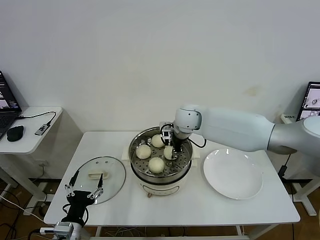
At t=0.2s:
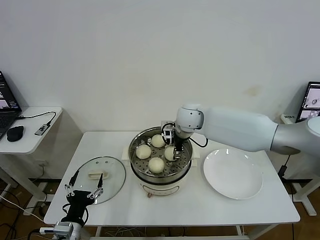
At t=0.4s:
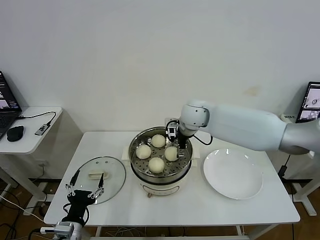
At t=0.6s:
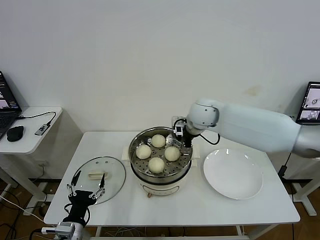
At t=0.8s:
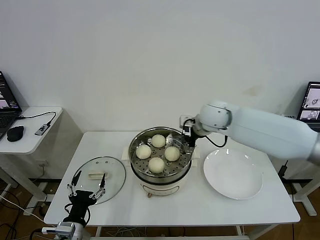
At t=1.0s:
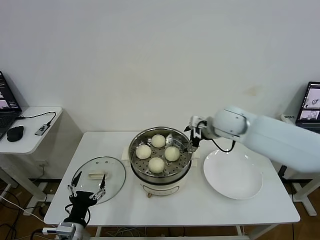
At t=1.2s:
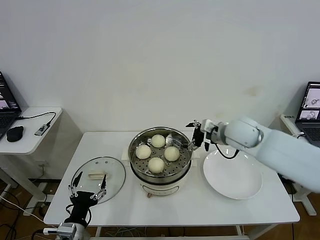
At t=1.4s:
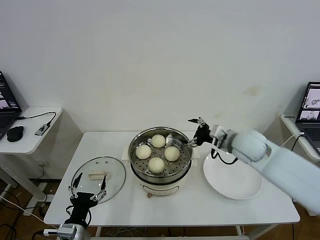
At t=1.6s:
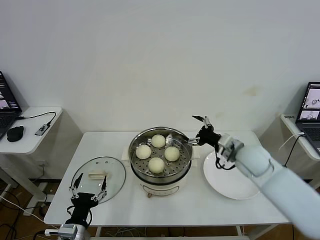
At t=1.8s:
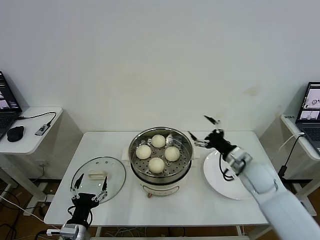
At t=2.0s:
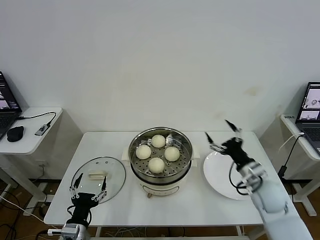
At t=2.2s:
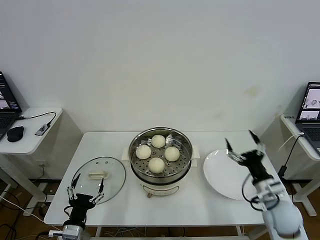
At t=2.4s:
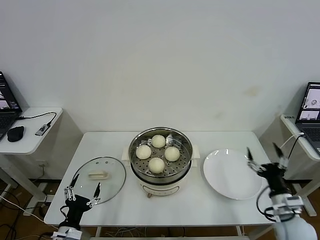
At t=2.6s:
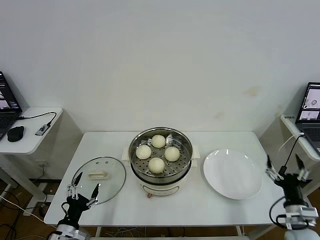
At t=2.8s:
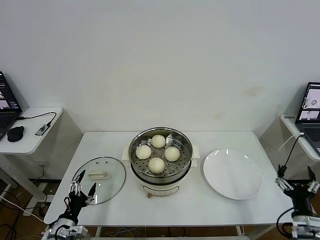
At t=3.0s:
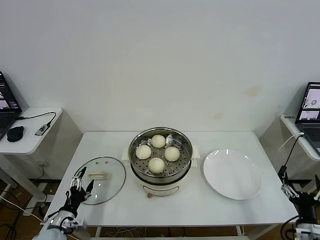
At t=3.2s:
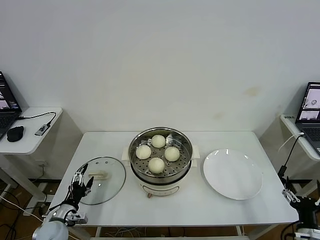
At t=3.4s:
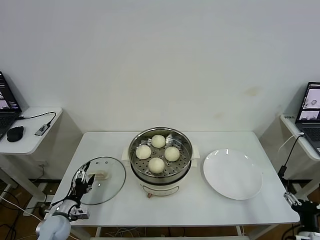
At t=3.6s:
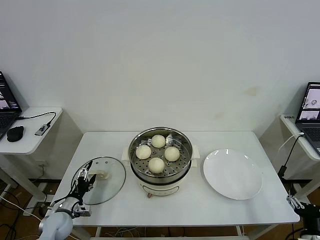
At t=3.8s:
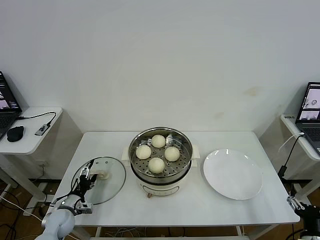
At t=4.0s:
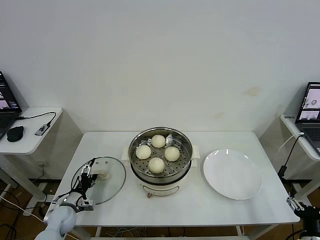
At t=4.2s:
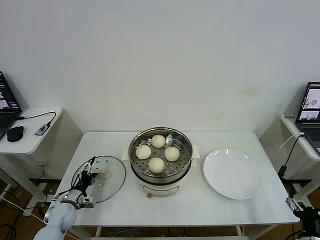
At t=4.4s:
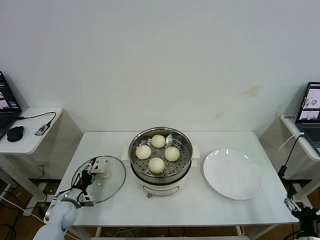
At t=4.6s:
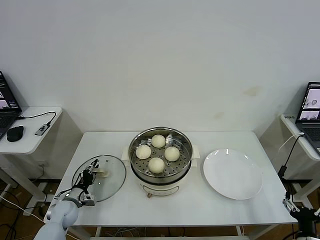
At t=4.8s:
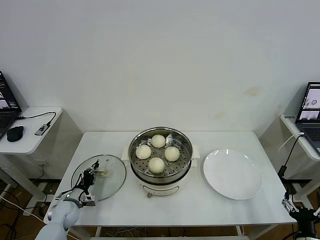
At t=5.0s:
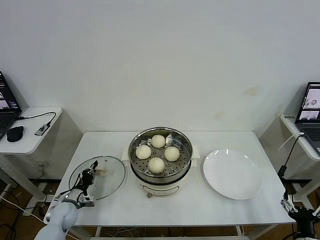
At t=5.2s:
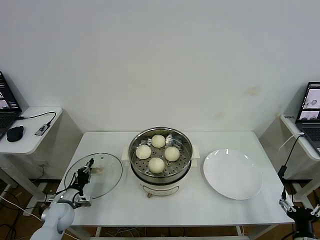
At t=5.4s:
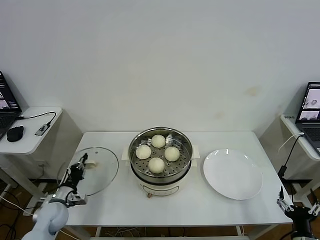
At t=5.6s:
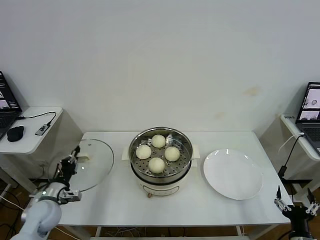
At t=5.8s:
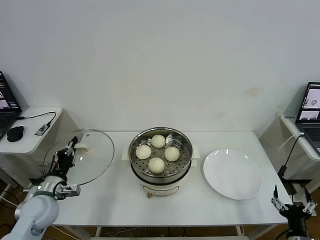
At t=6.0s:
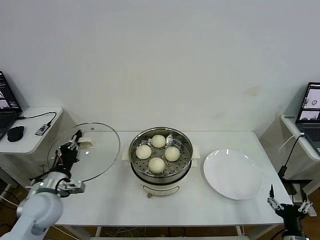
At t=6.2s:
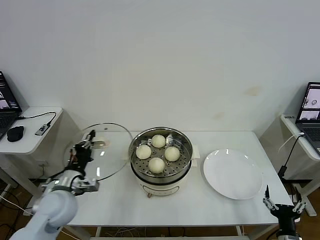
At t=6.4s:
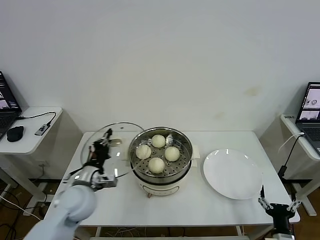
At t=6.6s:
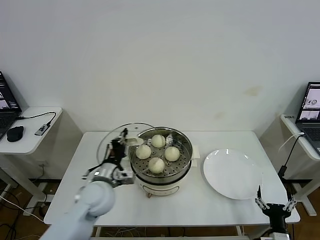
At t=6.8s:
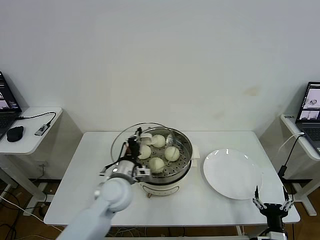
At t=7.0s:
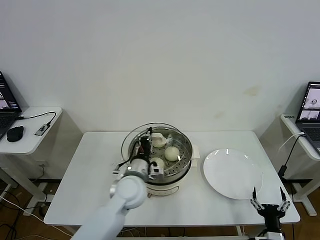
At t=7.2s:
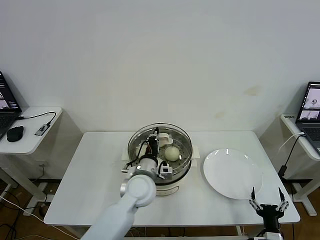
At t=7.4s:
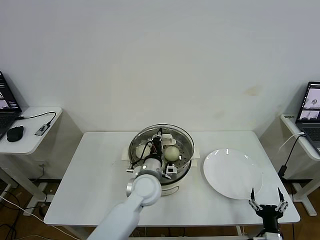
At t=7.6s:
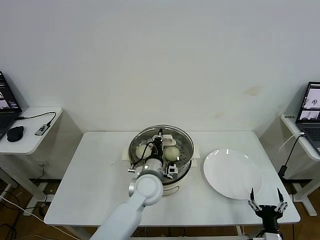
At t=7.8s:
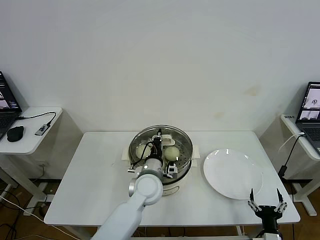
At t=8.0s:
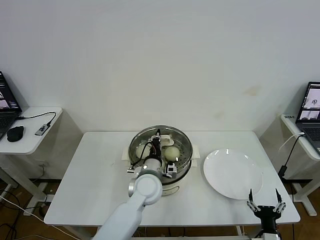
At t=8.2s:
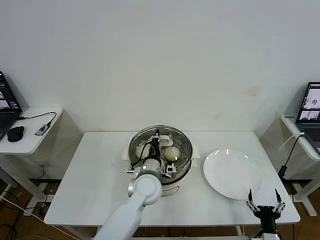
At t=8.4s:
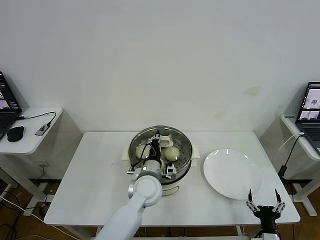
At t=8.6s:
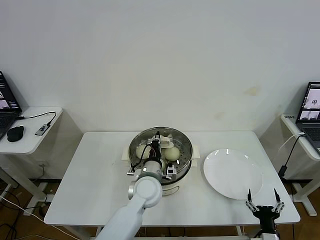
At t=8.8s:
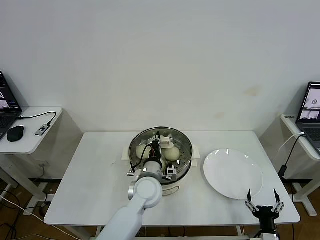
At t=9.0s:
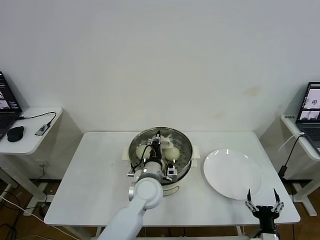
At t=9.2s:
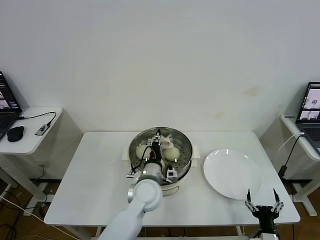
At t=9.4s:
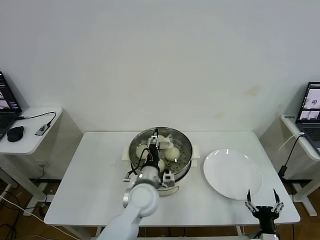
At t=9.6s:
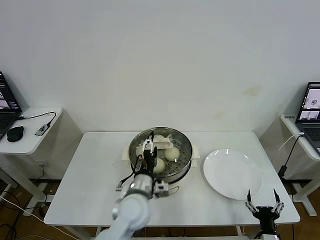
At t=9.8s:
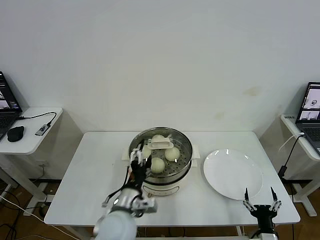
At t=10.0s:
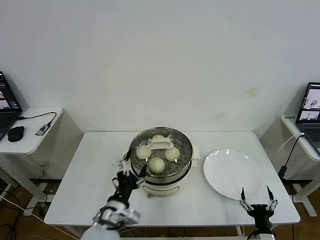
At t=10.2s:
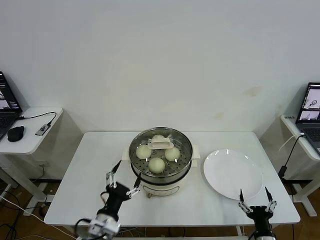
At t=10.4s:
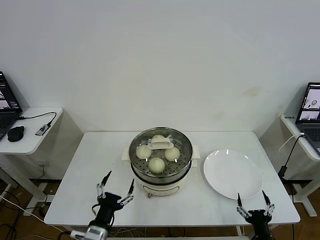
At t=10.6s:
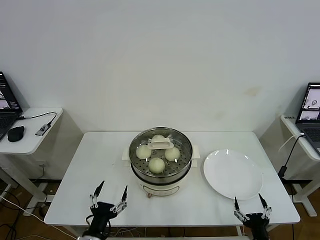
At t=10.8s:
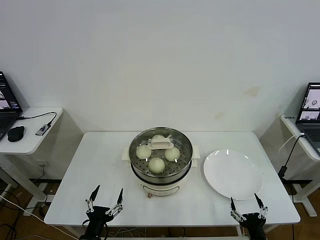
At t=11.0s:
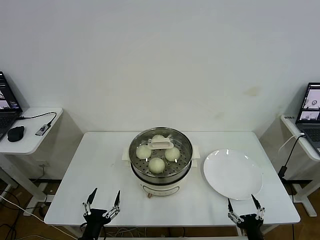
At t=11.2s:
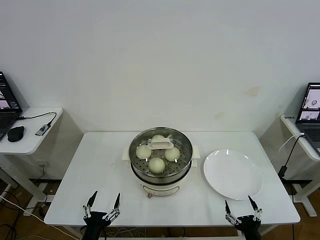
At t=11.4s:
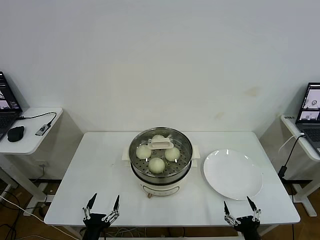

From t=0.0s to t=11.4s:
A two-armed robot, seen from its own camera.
Task of the whole recording: take steamed baozi put them in steamer then cover it.
Step, from t=0.4s to t=5.0s: Grasp the pot lid with left gripper.
Step, from t=5.2s to t=9.6s: Place the pot lid on the steamer with left gripper.
From t=0.0s to t=1.4s: The right gripper travels to the right and backward by approximately 20 cm, and opens its fingers.
From t=1.4s to t=2.8s: The left gripper shifts approximately 5 cm to the left. Meanwhile the right gripper is displaced backward, downward and to the right by approximately 35 cm.
From t=2.8s to t=4.2s: The right gripper moves backward, some 5 cm; the left gripper moves forward, about 15 cm.
From t=4.2s to t=5.6s: The left gripper is displaced upward by some 10 cm, and closes its fingers.
From t=5.6s to t=7.2s: The left gripper shifts approximately 30 cm to the right. Meanwhile the right gripper shifts about 5 cm to the left.
From t=7.2s to t=8.6s: There are only small adjustments of the grippers.
From t=8.6s to t=10.0s: The left gripper travels backward and to the left by roughly 15 cm, and opens.
From t=10.0s to t=11.4s: The right gripper shifts by approximately 5 cm; the left gripper shifts about 20 cm backward, downward and to the left.

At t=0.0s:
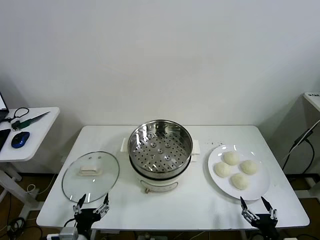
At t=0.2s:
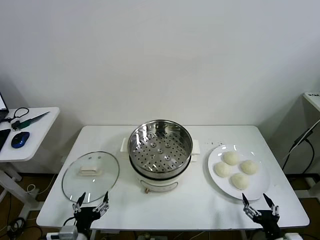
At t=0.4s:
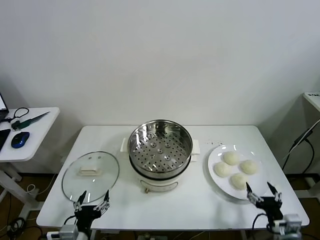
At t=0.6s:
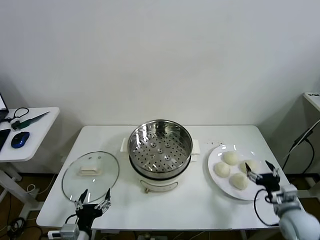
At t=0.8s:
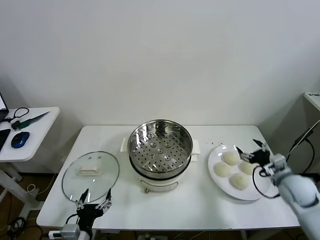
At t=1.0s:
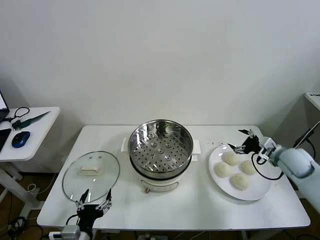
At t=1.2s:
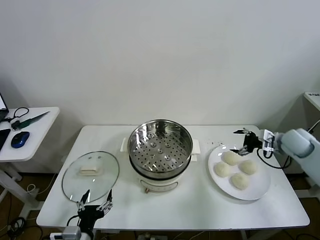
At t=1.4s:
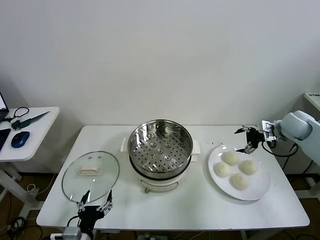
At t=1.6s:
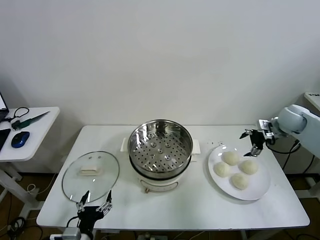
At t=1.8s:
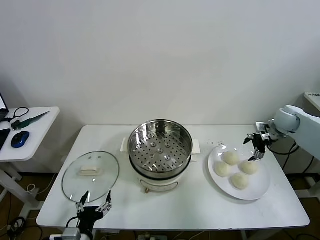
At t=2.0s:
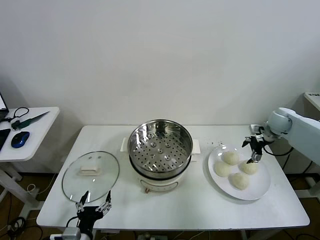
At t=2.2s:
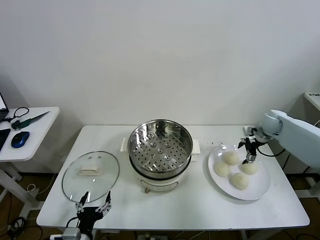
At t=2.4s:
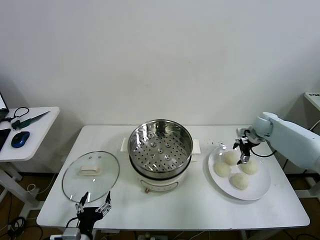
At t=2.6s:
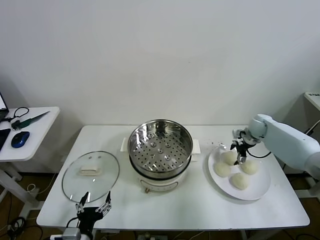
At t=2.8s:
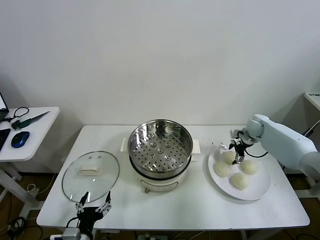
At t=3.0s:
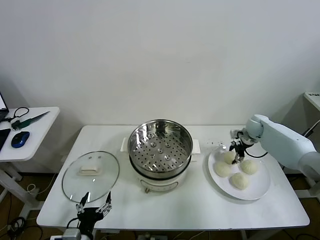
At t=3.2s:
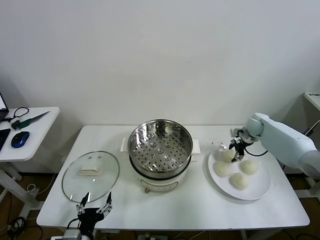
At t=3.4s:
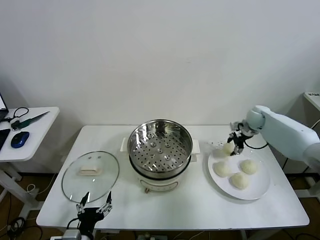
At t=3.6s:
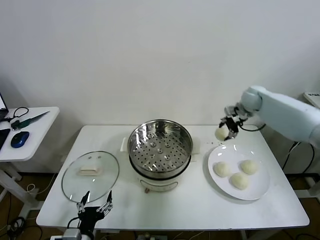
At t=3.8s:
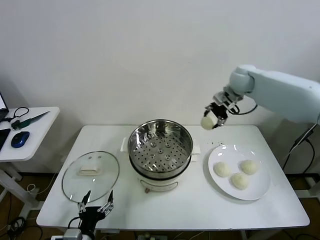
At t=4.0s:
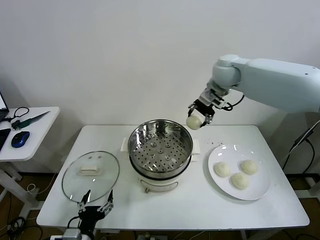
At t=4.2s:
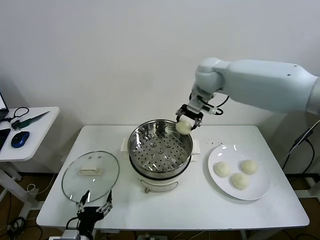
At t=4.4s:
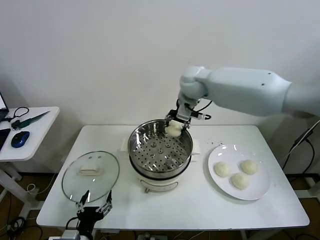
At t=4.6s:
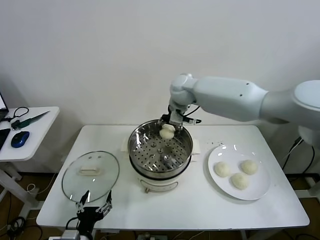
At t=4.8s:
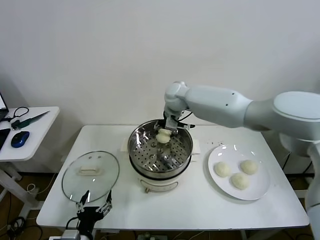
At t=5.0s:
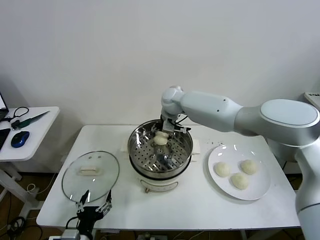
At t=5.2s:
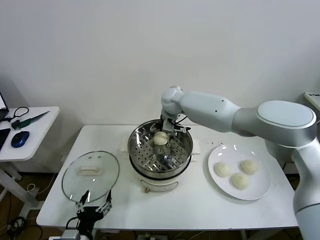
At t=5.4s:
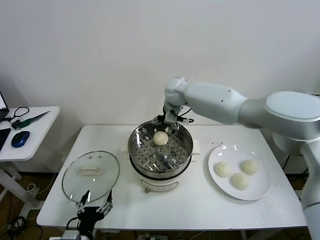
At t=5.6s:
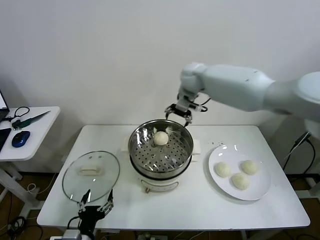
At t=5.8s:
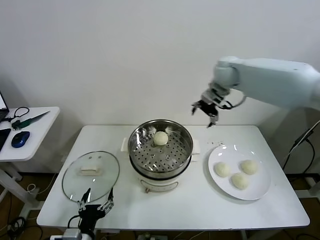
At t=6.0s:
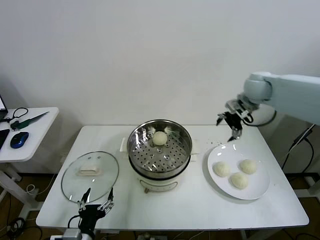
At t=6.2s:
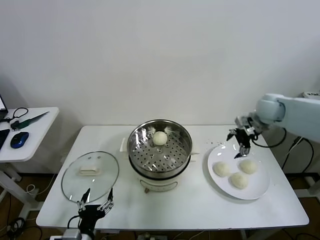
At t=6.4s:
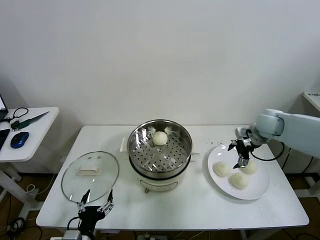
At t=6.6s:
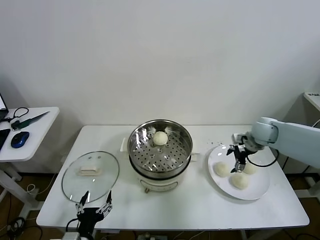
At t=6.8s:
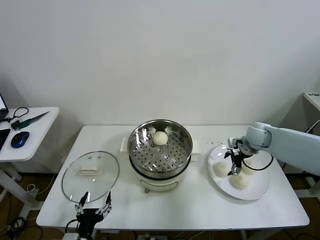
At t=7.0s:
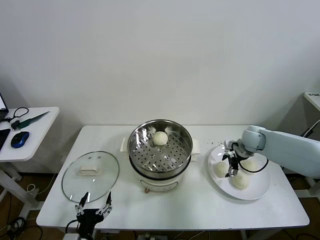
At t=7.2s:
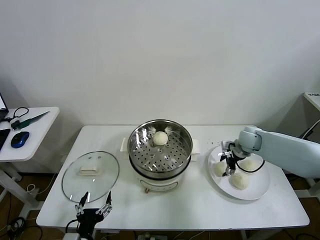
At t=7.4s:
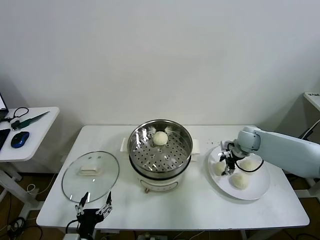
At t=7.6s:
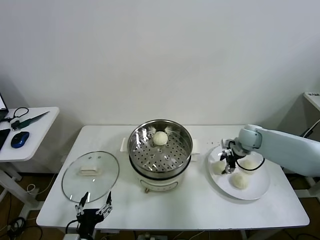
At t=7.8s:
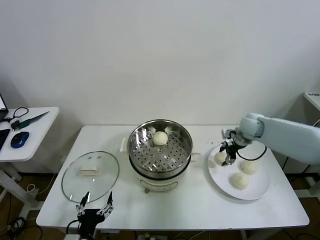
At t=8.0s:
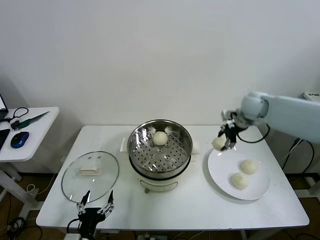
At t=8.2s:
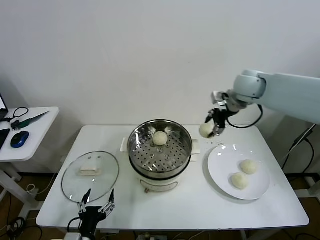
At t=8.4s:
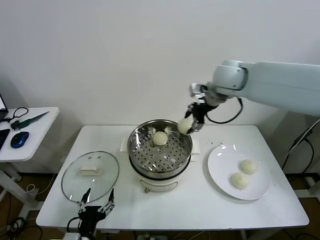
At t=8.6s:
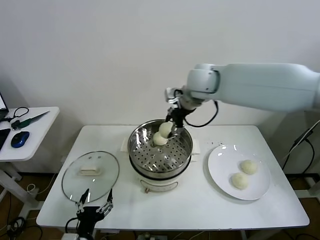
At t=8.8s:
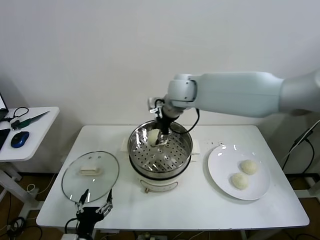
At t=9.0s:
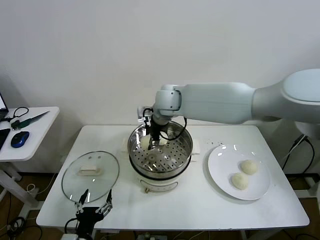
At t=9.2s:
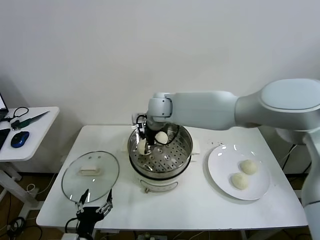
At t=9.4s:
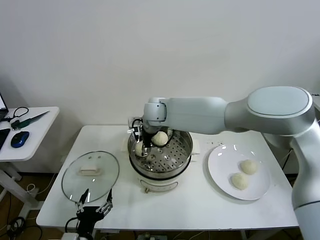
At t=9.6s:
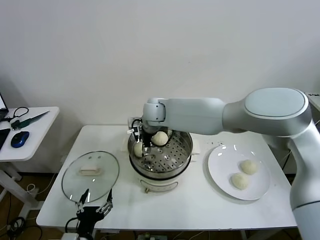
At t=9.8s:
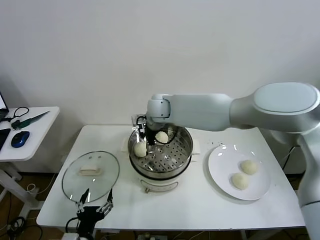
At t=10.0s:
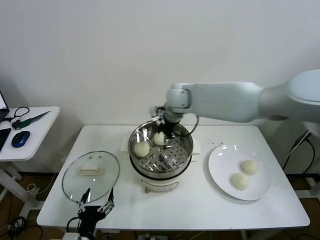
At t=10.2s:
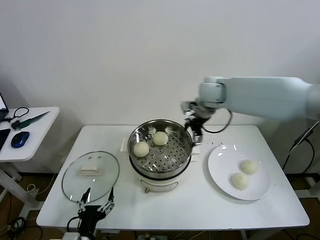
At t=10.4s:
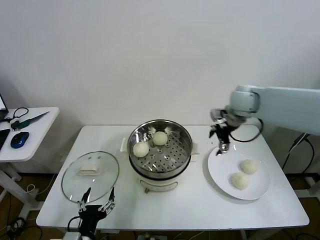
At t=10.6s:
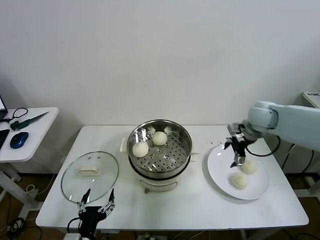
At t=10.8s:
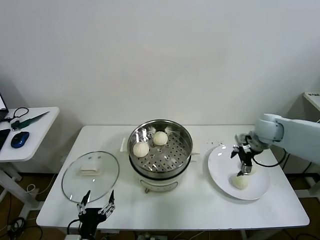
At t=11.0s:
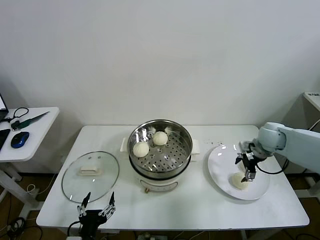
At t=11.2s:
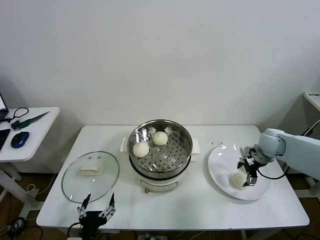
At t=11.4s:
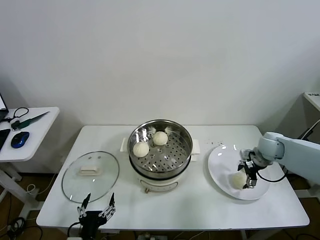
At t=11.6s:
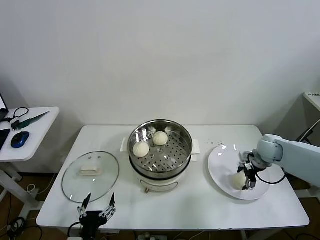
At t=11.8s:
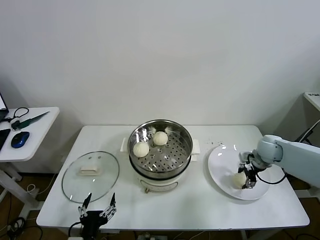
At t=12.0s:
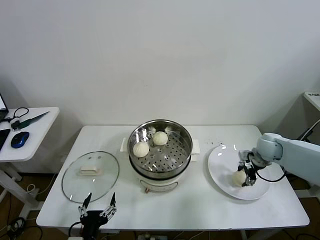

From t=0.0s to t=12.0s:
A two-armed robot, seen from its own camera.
Task of the whole recording: take steamed baozi put them in steamer then cover it.
Step, from t=0.0s to t=2.8s: Grasp the baozi in the plate with right gripper.
Step, from t=3.2s to t=5.2s: Place the baozi on the steamer with right gripper.
Step, from t=5.4s to t=7.4s: Grasp the baozi in the plate with right gripper.
Step, from t=7.6s to t=9.6s: Place the baozi on the steamer with right gripper.
Step, from t=10.0s to t=11.6s: Grasp the baozi in the plate with right gripper.
From t=1.6s to t=3.0s: The right gripper shifts approximately 15 cm downward, forward and to the left, and closes up.
From t=3.0s to t=4.4s: The right gripper is displaced to the left and upward by approximately 40 cm.
From t=4.4s to t=6.0s: The right gripper heads to the right, covering approximately 25 cm, and opens its fingers.
From t=6.0s to t=7.6s: The right gripper goes approximately 15 cm downward, and closes up.
From t=7.6s to t=9.0s: The right gripper is displaced to the left and upward by some 35 cm.
From t=9.0s to t=10.4s: The right gripper heads to the right, covering some 30 cm, and opens its fingers.
From t=10.4s to t=12.0s: The right gripper moves downward and to the right, some 20 cm, and closes.
